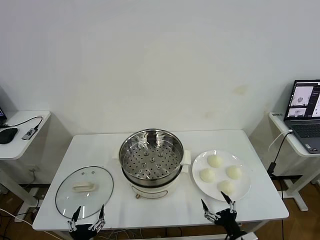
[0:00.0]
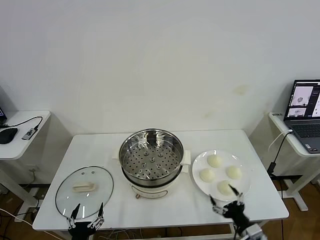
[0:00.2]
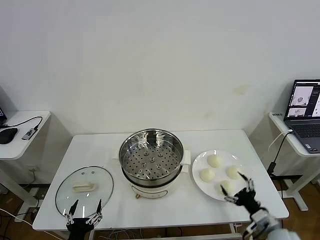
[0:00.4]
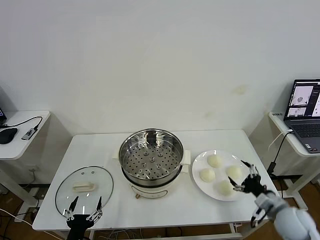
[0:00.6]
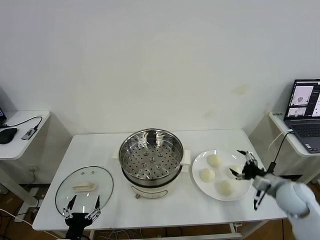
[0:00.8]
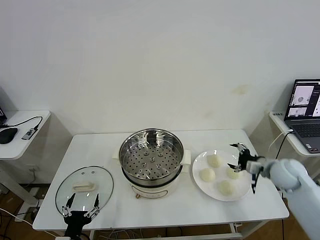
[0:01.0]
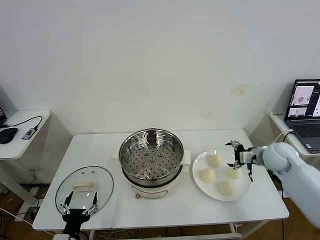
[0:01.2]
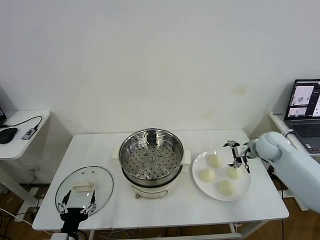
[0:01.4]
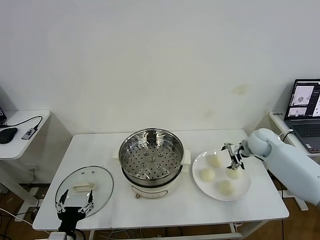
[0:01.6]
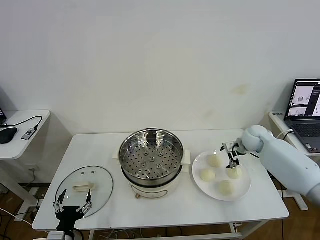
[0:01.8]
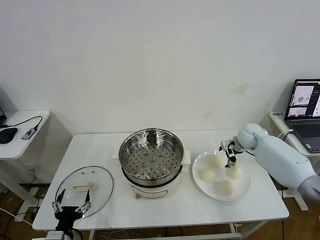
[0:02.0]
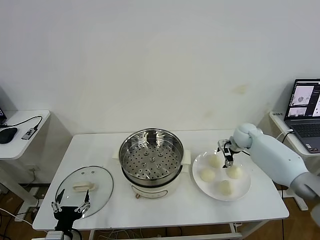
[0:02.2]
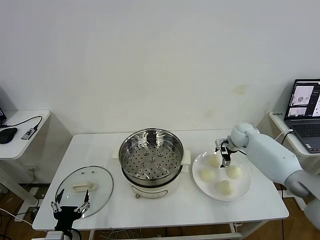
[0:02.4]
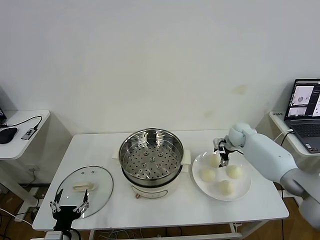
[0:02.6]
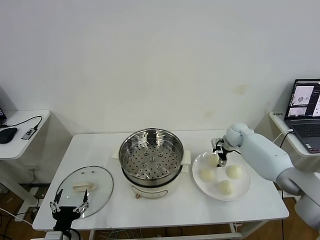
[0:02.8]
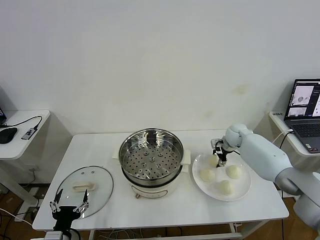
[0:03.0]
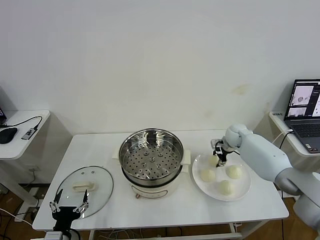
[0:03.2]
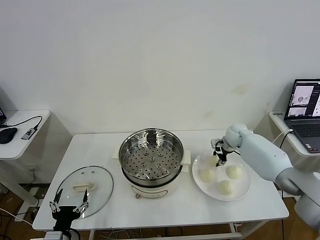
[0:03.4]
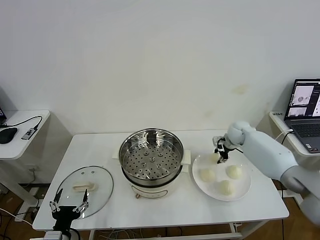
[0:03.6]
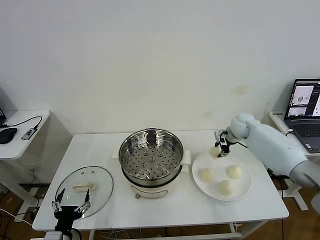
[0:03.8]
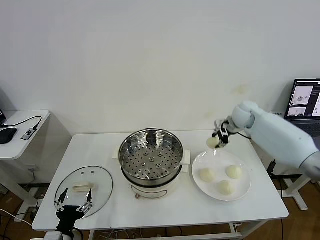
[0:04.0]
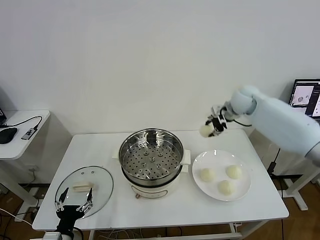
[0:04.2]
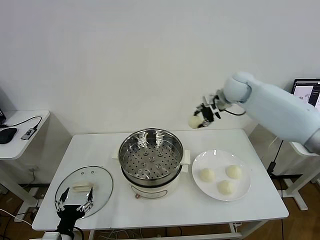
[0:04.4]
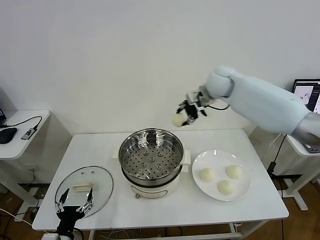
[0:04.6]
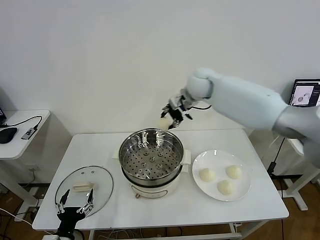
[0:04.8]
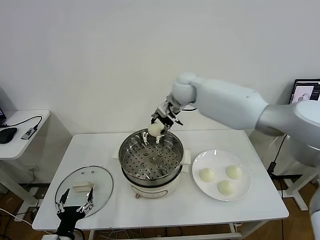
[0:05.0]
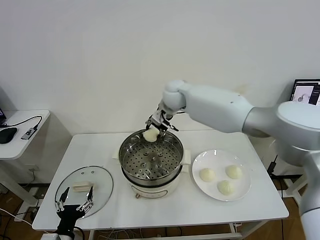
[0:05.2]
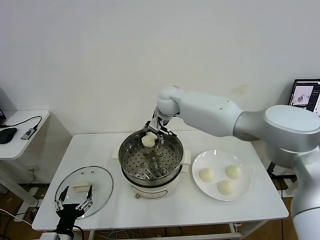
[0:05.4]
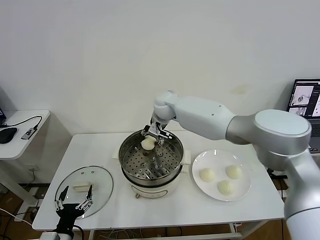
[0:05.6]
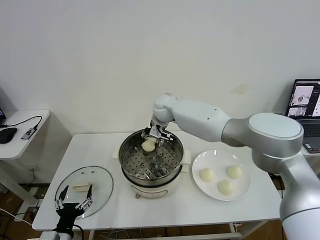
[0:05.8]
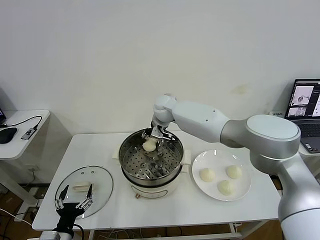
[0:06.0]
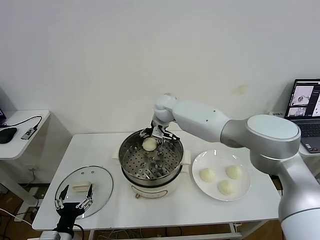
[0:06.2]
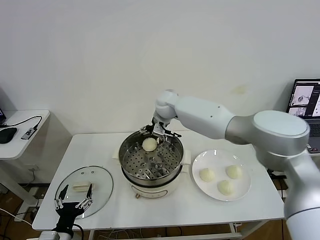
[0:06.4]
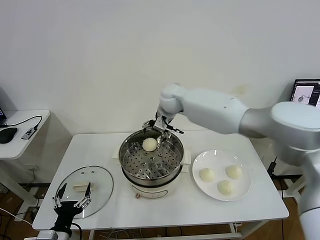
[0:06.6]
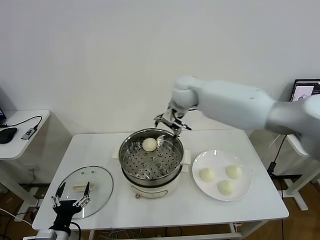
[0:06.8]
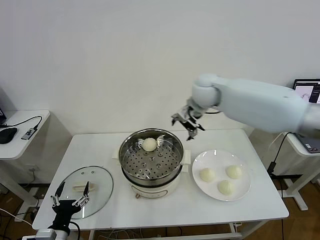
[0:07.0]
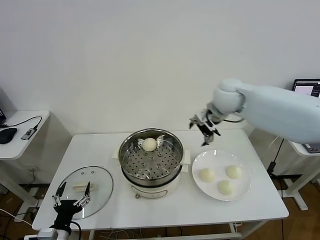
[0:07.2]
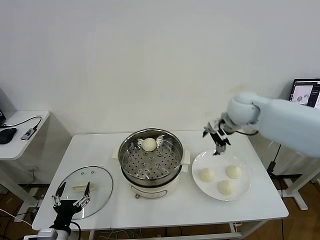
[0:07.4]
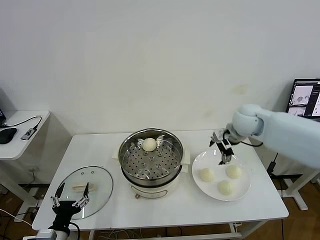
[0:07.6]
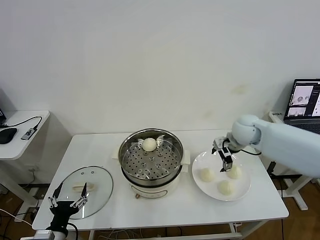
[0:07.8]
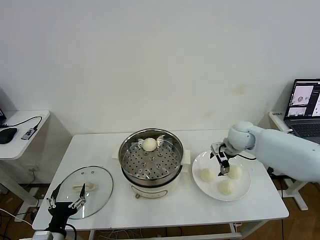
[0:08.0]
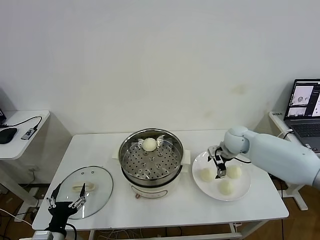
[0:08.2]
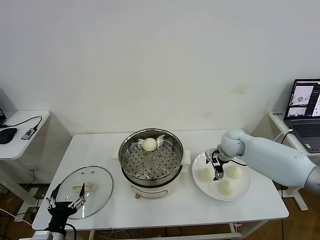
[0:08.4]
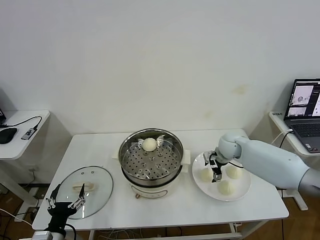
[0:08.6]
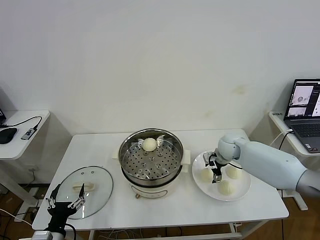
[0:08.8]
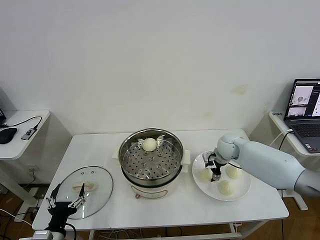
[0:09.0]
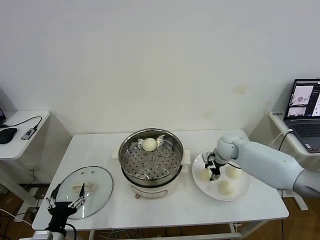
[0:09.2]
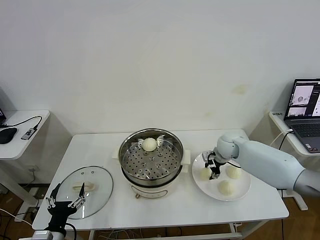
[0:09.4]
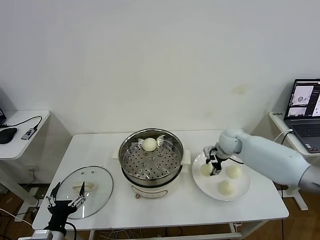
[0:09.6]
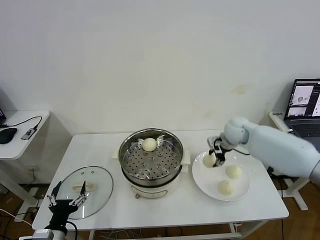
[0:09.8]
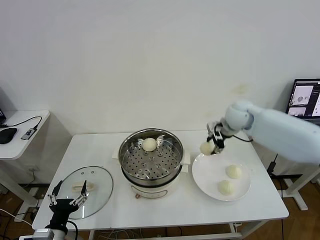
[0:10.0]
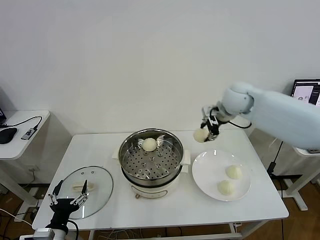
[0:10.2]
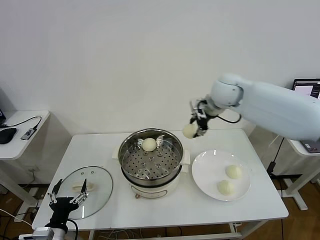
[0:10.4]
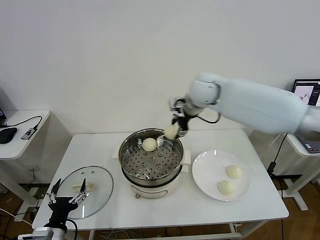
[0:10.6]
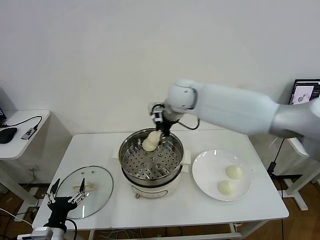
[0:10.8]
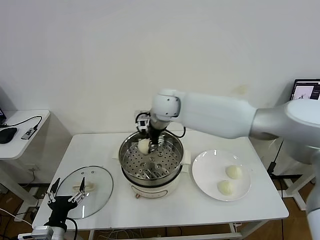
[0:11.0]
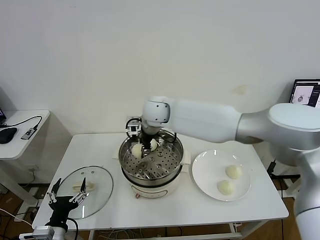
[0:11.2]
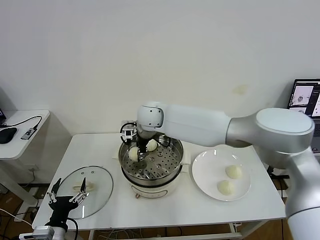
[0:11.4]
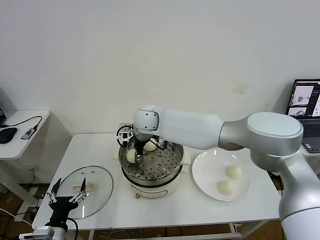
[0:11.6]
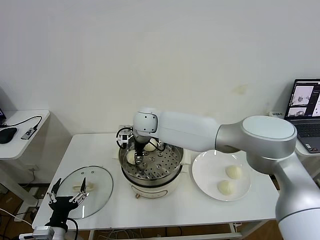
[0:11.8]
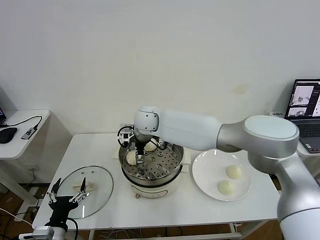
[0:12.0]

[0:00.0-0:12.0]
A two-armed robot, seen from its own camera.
Task of the whole recording: take steamed baozi put them in steamer then cover it.
Step, 0:00.0 to 0:03.4: Grasp the baozi in the plate with right gripper.
Step, 0:03.6 to 0:06.4: Place the baozi on the steamer with right gripper.
Step, 0:06.6 to 0:09.4: Grasp the baozi in the plate with right gripper.
0:01.6 to 0:03.0: The right gripper shifts roughly 5 cm forward, and closes.
0:03.0 to 0:04.4: The right gripper shifts approximately 25 cm upward and to the left.
0:04.4 to 0:06.0: The right gripper travels to the left and downward by about 20 cm, and opens up.
0:06.0 to 0:07.6: The right gripper is displaced to the right by roughly 25 cm, and opens up.
0:07.6 to 0:09.0: The right gripper travels downward by about 15 cm, and closes its fingers.
0:09.0 to 0:10.4: The right gripper moves upward and to the left, approximately 25 cm.
0:10.4 to 0:12.0: The right gripper shifts approximately 20 cm to the left and downward, and opens.

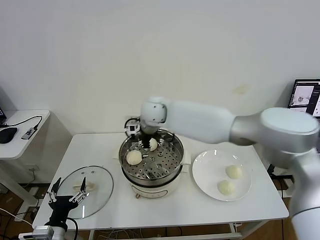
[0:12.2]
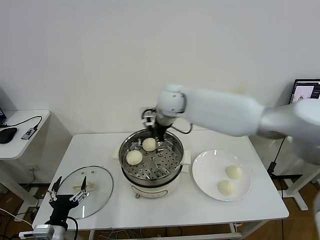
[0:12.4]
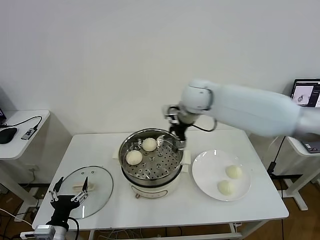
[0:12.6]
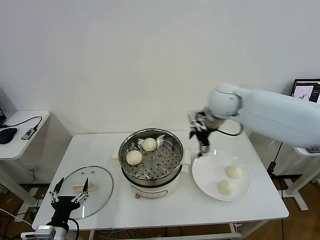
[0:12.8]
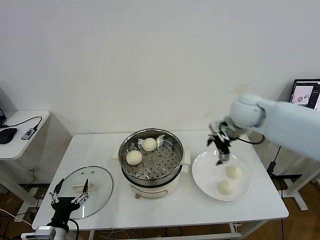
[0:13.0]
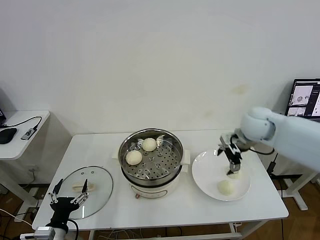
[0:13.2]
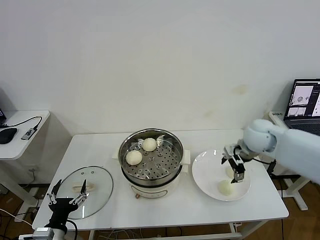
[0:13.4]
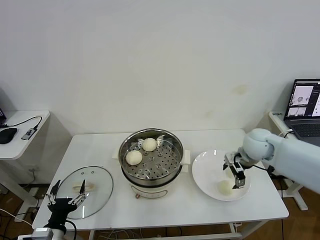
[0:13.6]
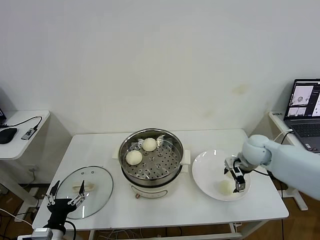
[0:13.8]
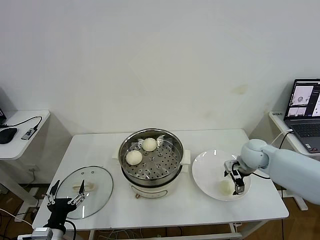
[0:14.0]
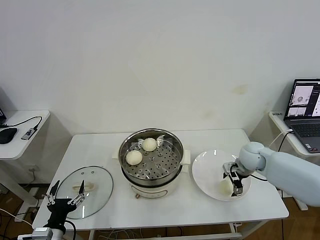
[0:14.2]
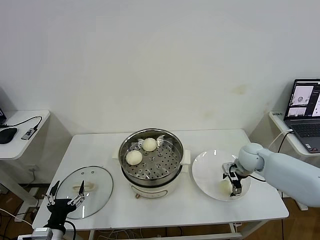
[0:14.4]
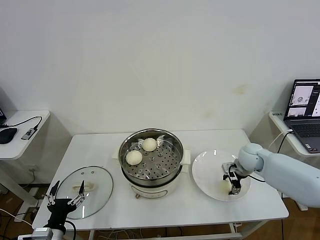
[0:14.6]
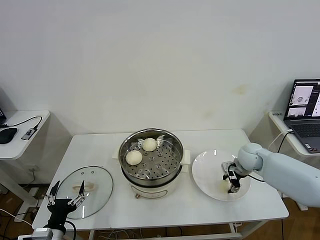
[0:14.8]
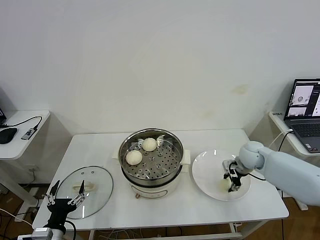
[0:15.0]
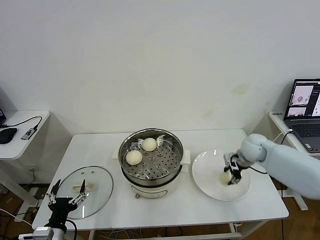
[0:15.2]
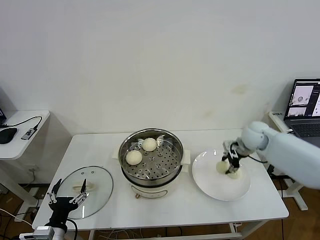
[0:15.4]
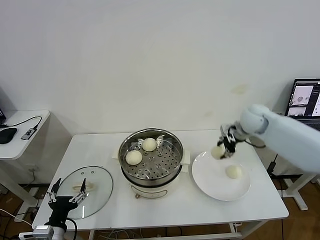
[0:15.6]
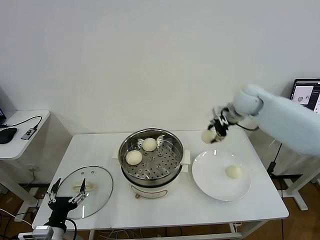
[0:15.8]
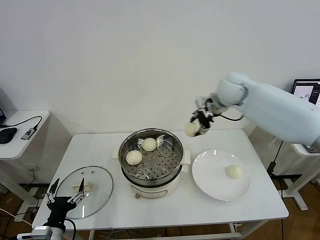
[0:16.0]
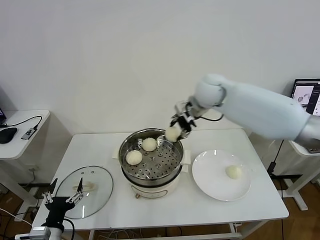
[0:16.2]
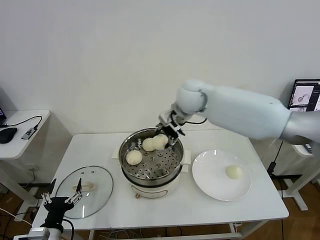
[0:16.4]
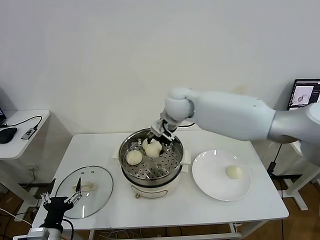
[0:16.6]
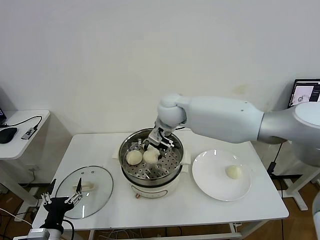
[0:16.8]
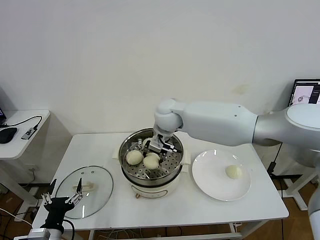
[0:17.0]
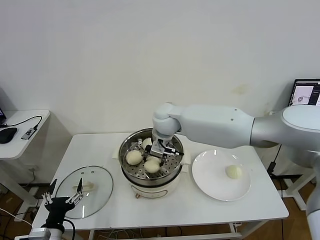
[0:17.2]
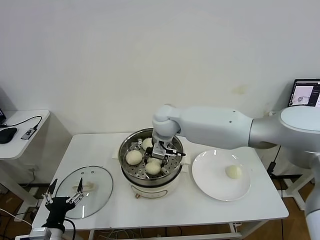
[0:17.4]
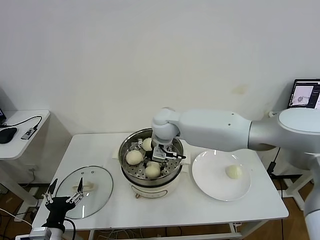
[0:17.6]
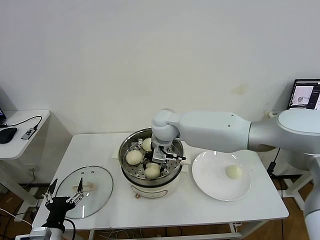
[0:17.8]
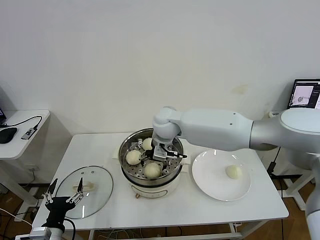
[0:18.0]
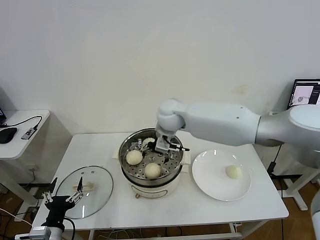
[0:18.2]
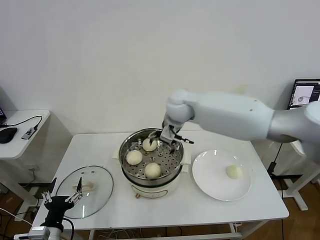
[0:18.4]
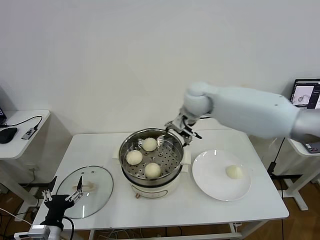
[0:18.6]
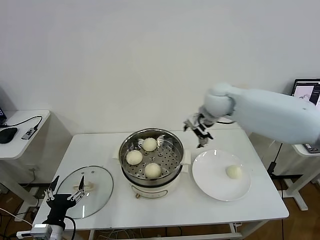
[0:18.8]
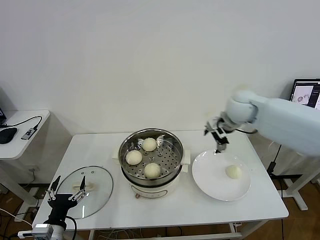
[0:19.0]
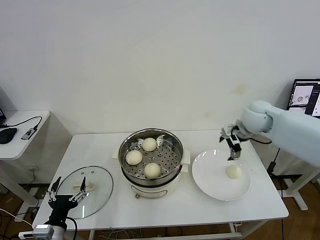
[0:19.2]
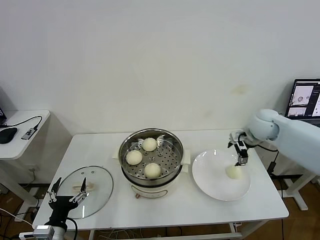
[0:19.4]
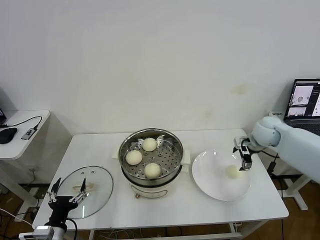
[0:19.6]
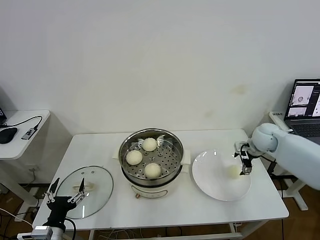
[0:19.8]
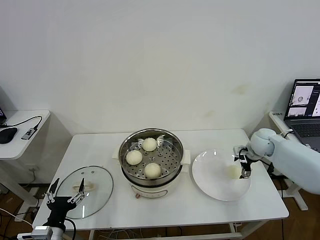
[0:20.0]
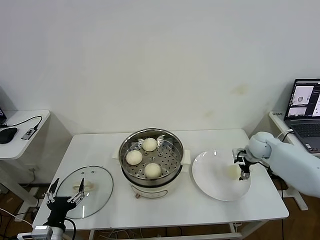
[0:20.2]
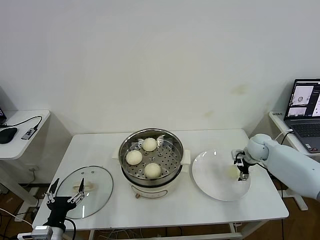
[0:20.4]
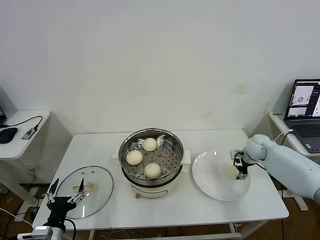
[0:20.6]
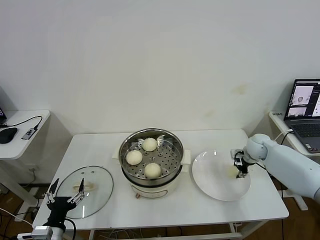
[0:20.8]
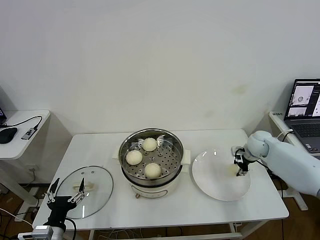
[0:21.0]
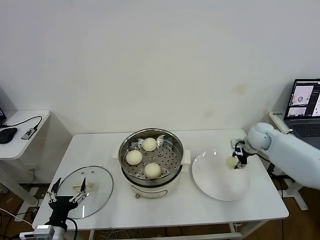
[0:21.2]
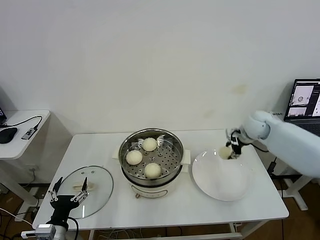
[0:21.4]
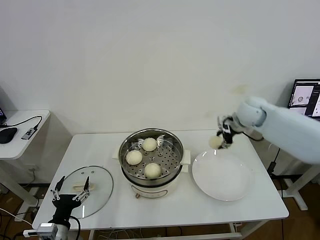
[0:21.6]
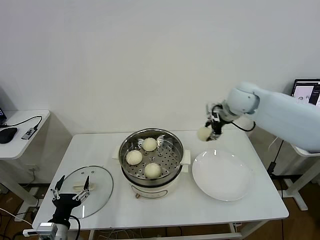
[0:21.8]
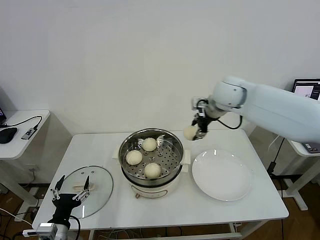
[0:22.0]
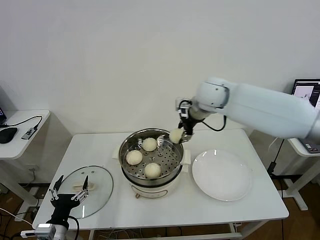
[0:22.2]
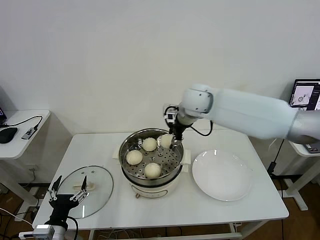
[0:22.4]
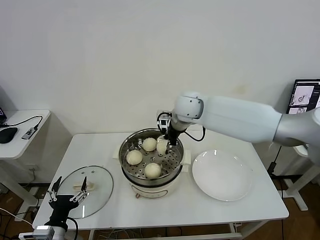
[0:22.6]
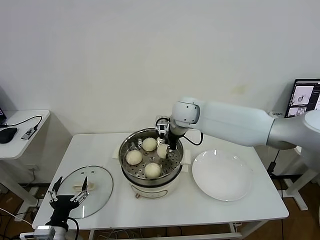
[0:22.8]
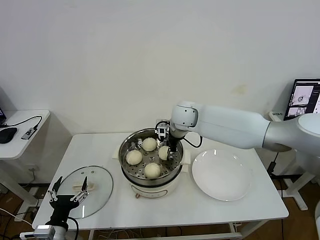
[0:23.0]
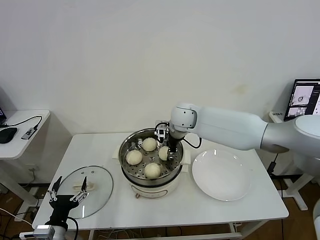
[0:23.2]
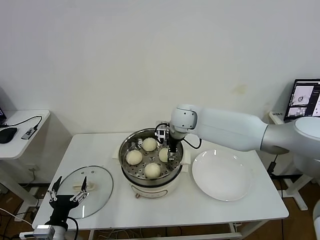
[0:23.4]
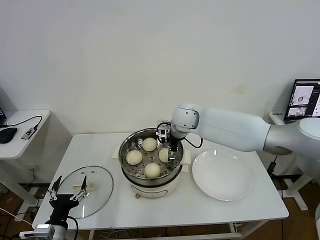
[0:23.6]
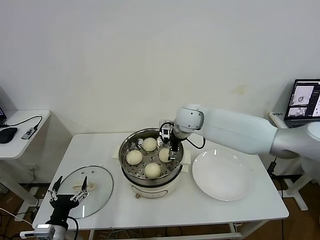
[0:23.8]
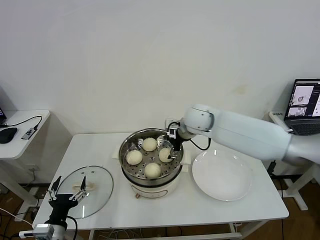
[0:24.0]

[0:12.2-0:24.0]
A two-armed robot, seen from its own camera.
Task of the whole recording: take steamed baozi put them in steamer then cover it.
Step, 0:12.4 to 0:15.0: Grasp the baozi in the plate with right gripper.
Step, 0:15.2 to 0:18.0: Place the baozi on the steamer with right gripper.
Step, 0:18.4 to 0:21.0: Grasp the baozi in the plate with right gripper.
Step, 0:21.2 to 0:23.6: Place the baozi on the steamer with right gripper.
0:12.2 to 0:13.6: The right gripper moves to the right, roughly 30 cm.
0:13.6 to 0:15.2: The right gripper closes its fingers.
0:15.2 to 0:16.6: The right gripper is displaced to the left and upward by some 35 cm.
0:16.6 to 0:18.2: The right gripper opens.
0:18.2 to 0:19.6: The right gripper heads to the right, covering about 35 cm.
0:19.6 to 0:21.0: The right gripper shifts approximately 5 cm downward, and closes up.
0:21.0 to 0:22.6: The right gripper goes approximately 35 cm to the left and upward.
0:22.6 to 0:24.0: The right gripper shifts by some 5 cm, and opens its fingers.
